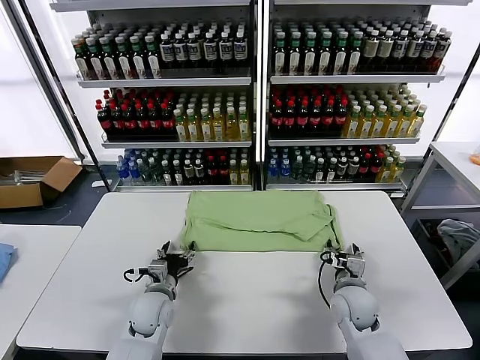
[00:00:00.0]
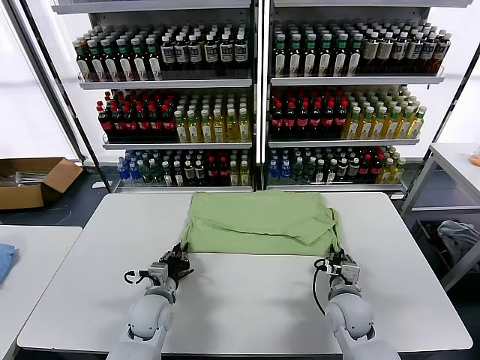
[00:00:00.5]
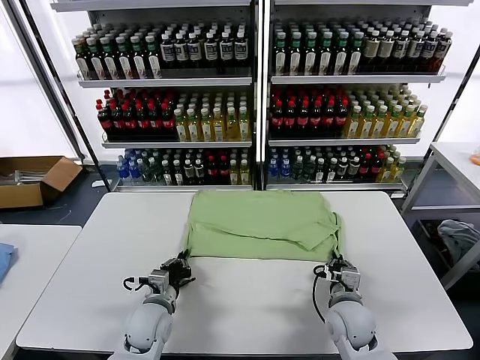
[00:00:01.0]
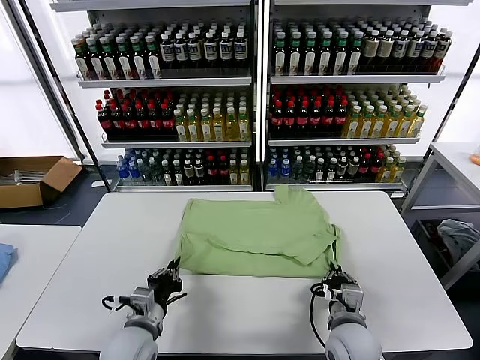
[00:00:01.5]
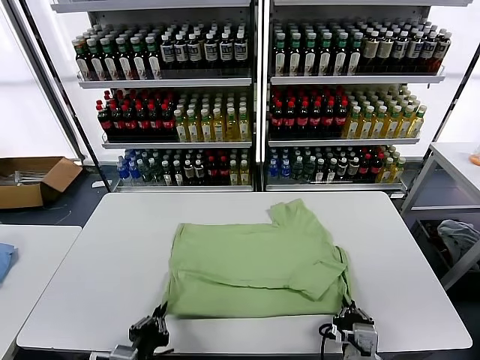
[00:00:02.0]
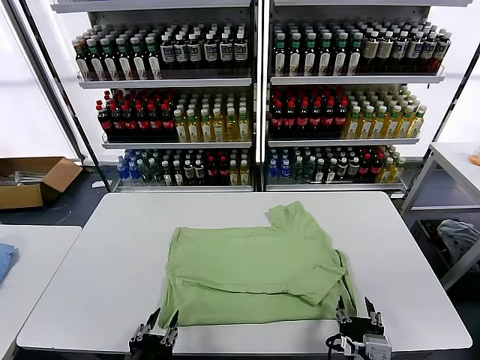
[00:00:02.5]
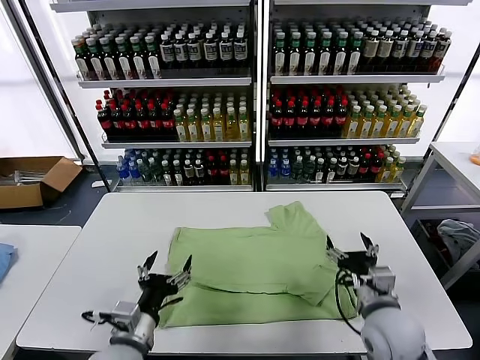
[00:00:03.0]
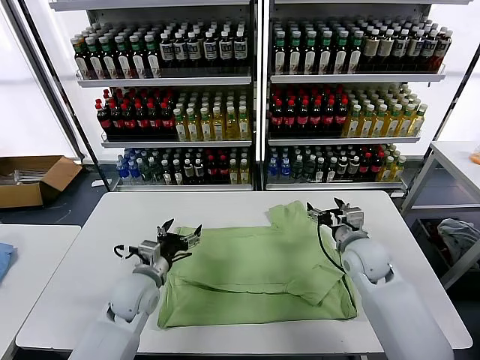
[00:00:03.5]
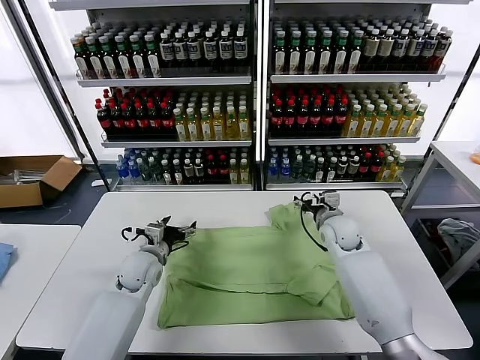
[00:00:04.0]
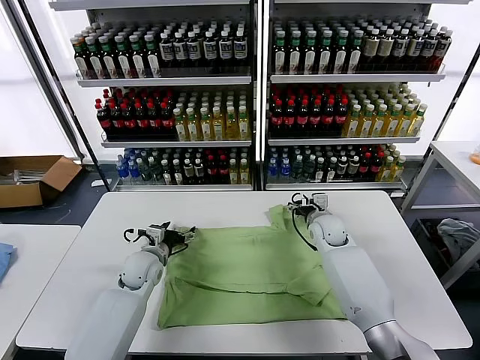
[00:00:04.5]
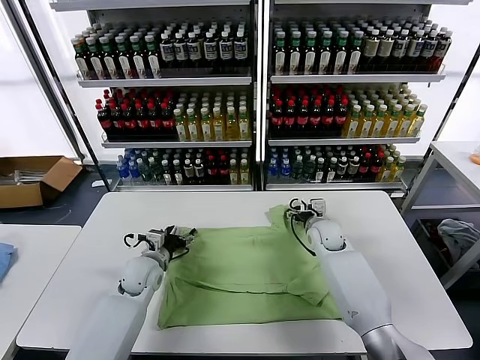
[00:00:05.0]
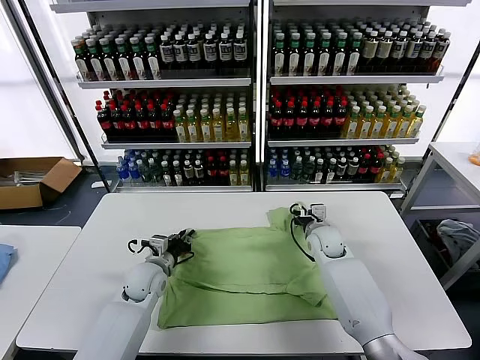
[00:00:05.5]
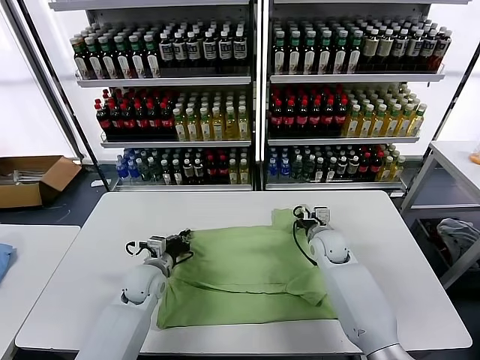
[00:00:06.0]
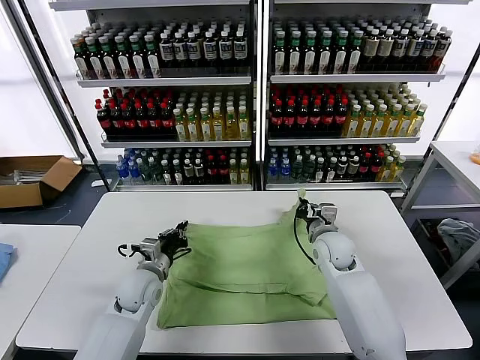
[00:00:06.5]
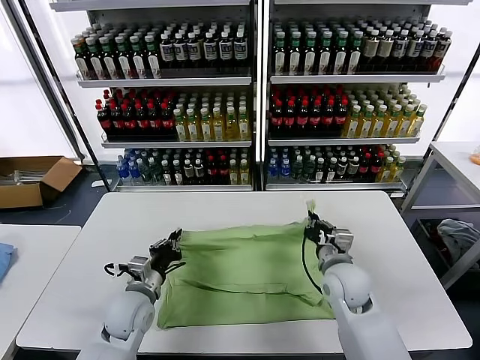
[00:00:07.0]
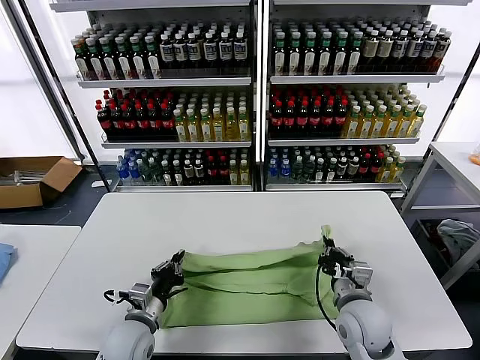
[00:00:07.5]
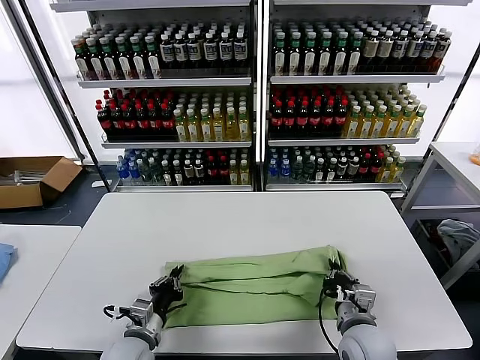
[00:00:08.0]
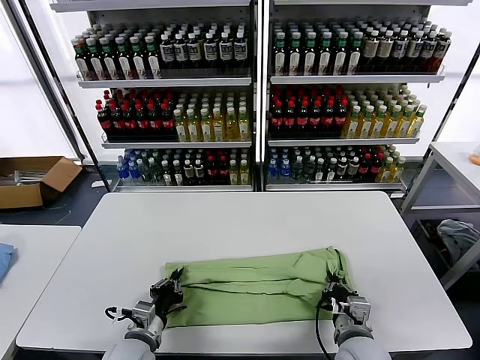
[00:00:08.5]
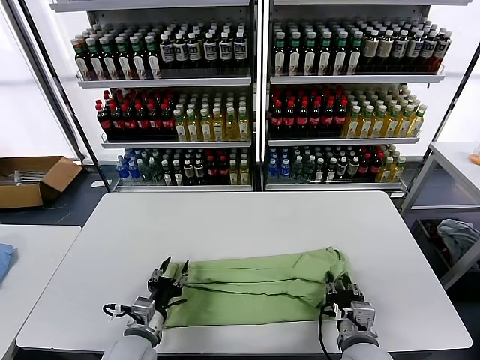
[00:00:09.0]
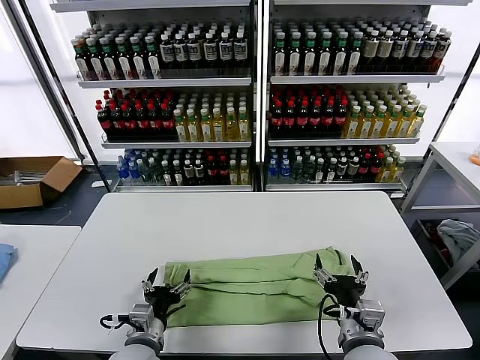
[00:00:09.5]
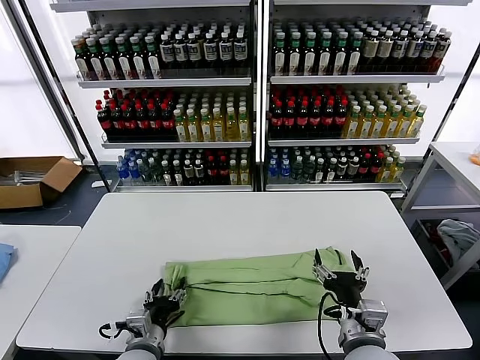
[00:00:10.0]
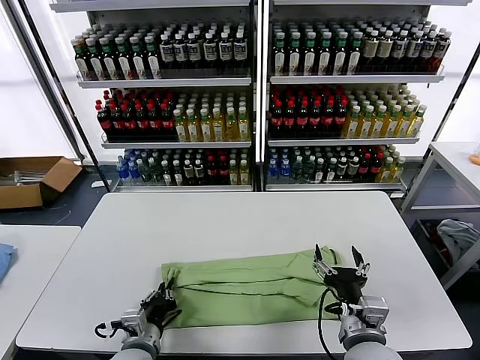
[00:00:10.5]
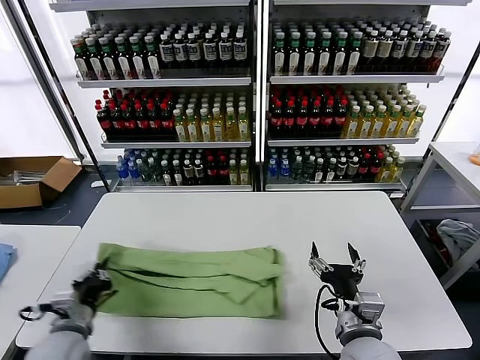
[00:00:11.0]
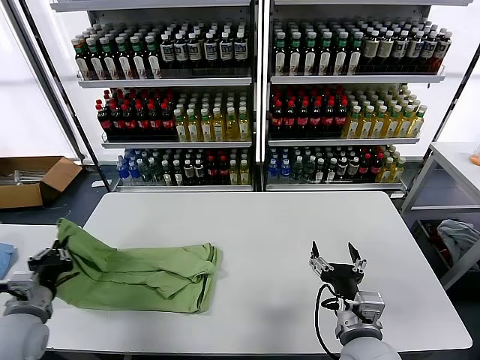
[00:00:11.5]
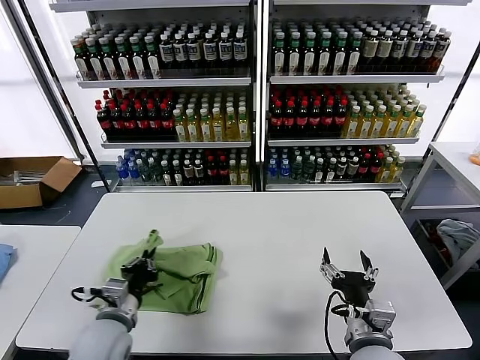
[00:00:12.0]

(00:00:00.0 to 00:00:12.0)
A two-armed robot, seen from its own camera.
Task of the whole recording: fold and organize the clothes.
Step, 00:00:00.0 - 00:00:02.0: Drag the clothes downward with both gripper.
Step, 00:00:03.0 - 00:00:05.5: use both grippers simultaneously to clamp the upper edge of the clothing fabric.
Step, 00:00:06.0 - 00:00:09.0: use both grippers to drag the upper edge of the fabric backward and fold it over the lower edge.
Step, 00:00:09.5 - 00:00:10.5: use the left gripper to clamp the left edge of the fabric.
00:00:00.0 - 00:00:02.0: Both grippers move backward, approximately 20 cm. The left gripper closes. Meanwhile the right gripper closes its fingers.
00:00:02.0 - 00:00:04.0: The two grippers go approximately 35 cm forward. The left gripper opens its fingers. The right gripper opens its fingers.
00:00:04.0 - 00:00:06.0: The left gripper closes up, while the right gripper closes its fingers.
00:00:06.0 - 00:00:08.0: Both grippers travel together backward, about 20 cm.
00:00:08.0 - 00:00:10.0: The right gripper moves upward and backward, some 5 cm, and opens. The left gripper opens.
00:00:10.0 - 00:00:12.0: The left gripper shifts some 5 cm upward, moves approximately 20 cm to the left and comes back, and closes.

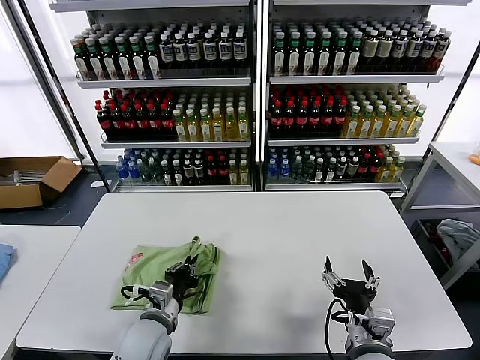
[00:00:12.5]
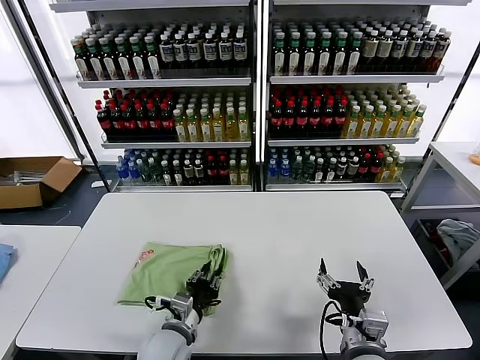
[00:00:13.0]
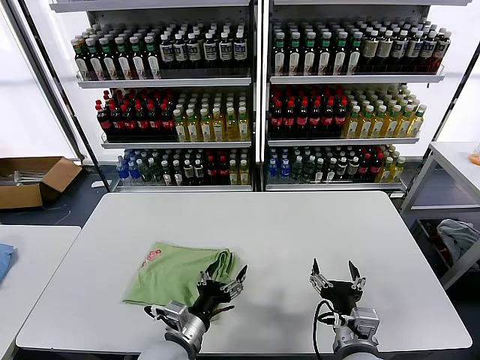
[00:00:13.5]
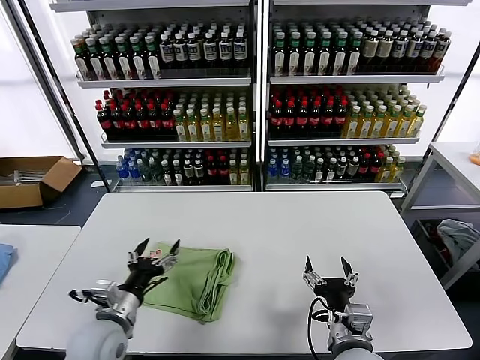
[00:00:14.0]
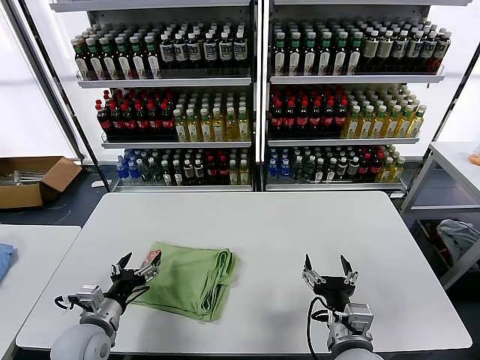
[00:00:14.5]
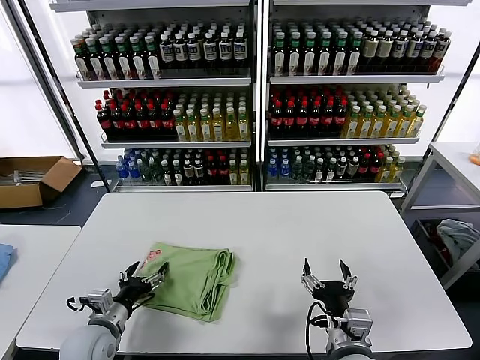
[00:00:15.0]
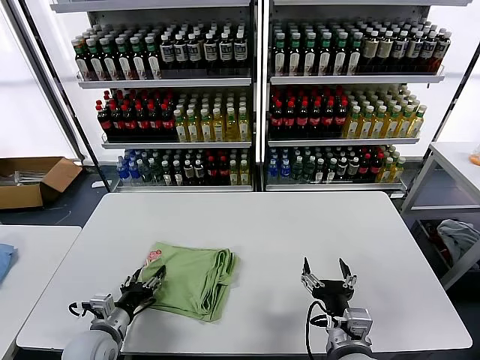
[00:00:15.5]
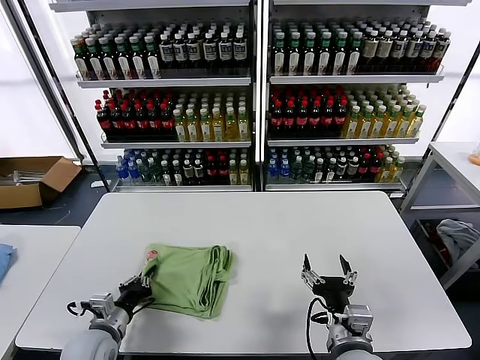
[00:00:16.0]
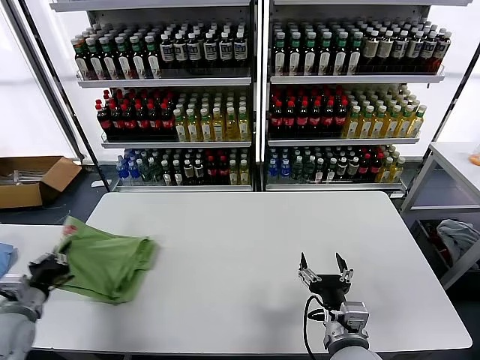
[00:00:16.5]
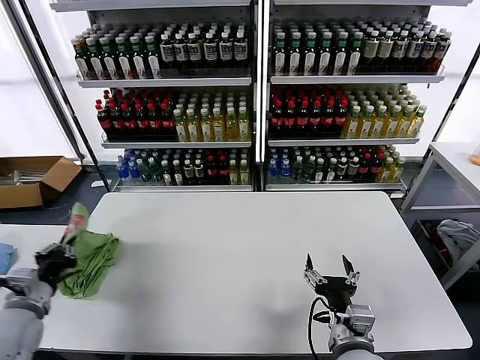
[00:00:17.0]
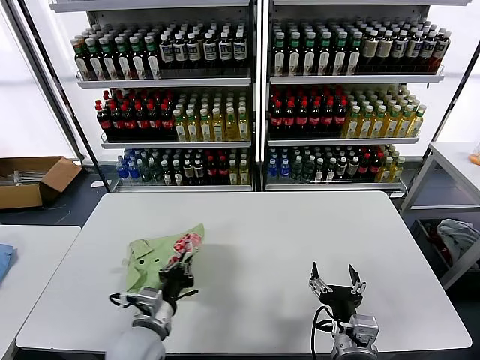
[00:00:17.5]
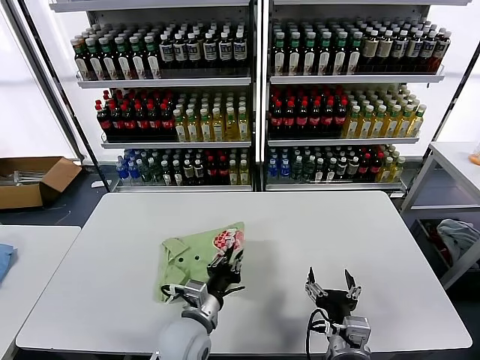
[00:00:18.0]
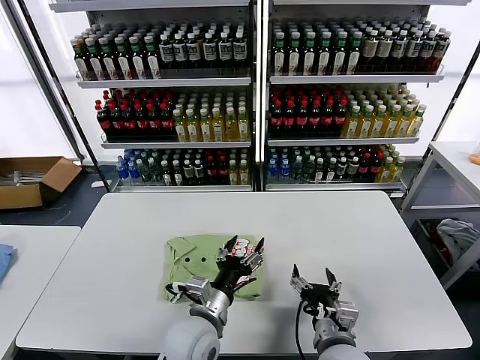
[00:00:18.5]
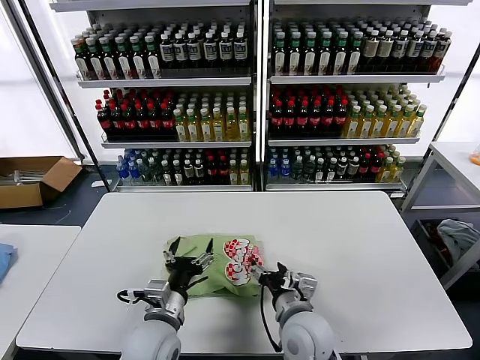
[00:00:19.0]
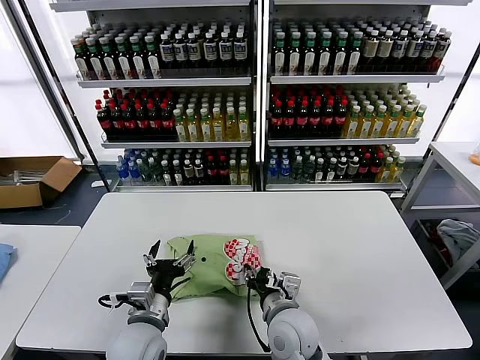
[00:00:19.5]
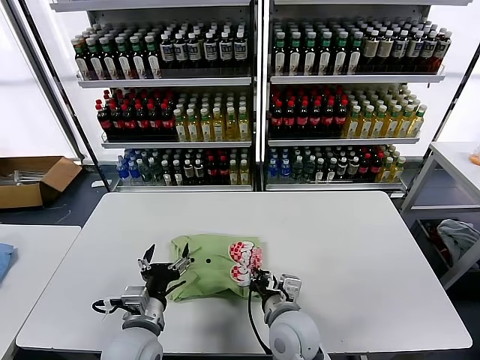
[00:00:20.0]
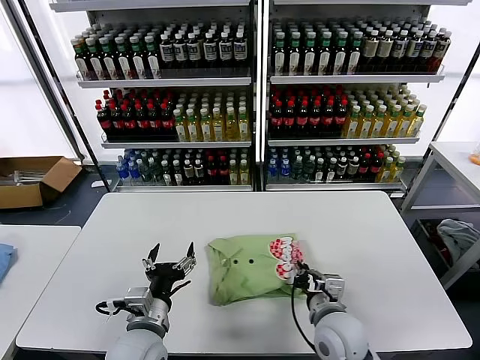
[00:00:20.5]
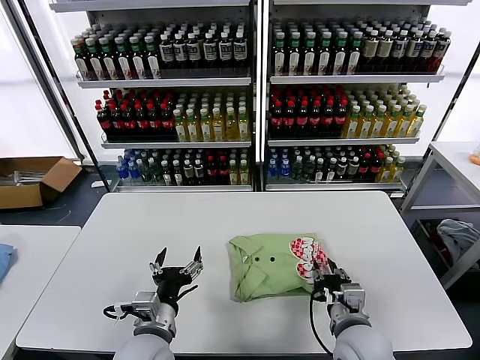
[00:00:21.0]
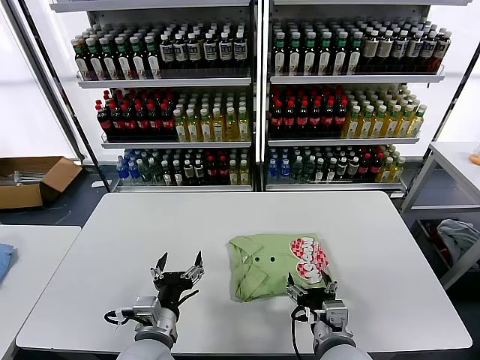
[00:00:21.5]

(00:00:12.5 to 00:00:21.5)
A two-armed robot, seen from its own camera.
Task of the whole recording: fold and organize the clothes.
Step, 00:00:14.0 - 00:00:18.0: Flip the folded clothes over with left gripper.
00:00:12.5 - 00:00:14.5: The left gripper goes some 10 cm to the left, and opens.
00:00:14.5 - 00:00:17.0: The left gripper is displaced to the left and upward by some 15 cm, and closes up.
00:00:17.0 - 00:00:19.5: The left gripper goes roughly 25 cm to the right, and opens, while the right gripper moves to the left and forward, about 15 cm, and closes up.
00:00:19.5 - 00:00:21.5: The right gripper shifts some 10 cm to the right and backward, and closes, then opens again.

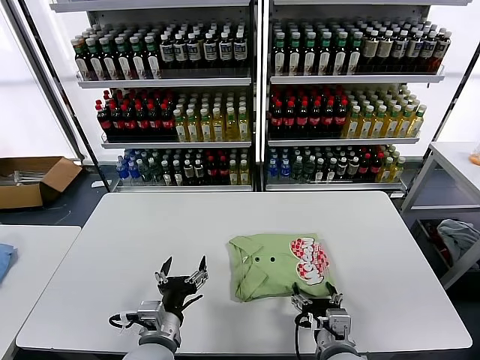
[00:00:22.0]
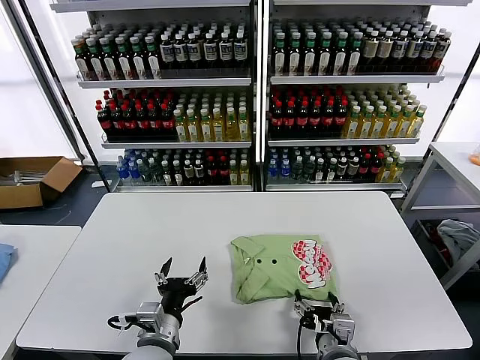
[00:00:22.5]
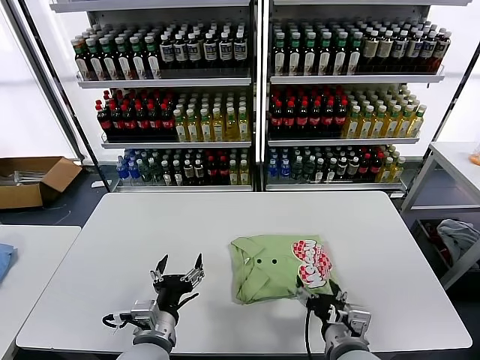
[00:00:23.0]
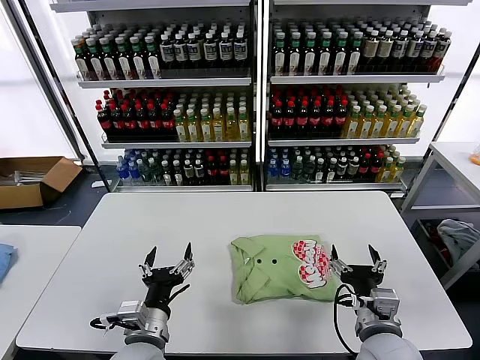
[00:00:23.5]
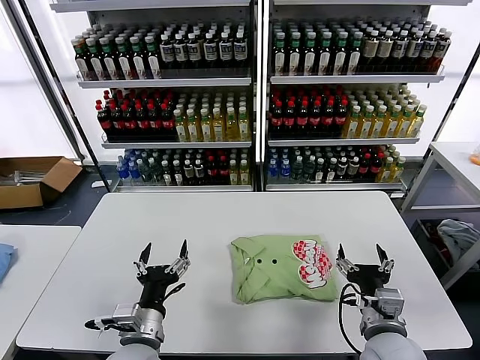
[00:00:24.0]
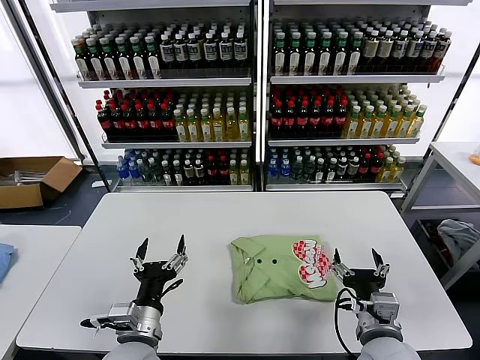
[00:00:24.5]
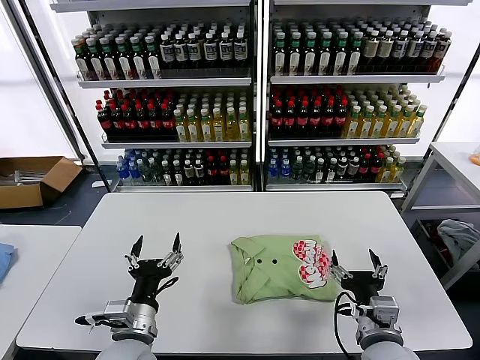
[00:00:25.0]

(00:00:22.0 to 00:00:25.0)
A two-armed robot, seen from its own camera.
Task of the whole recording: fold and organize the clothes.
00:00:22.0 - 00:00:23.5: The right gripper heads to the right, covering about 5 cm.
00:00:23.5 - 00:00:25.0: The grippers make only small movements.
